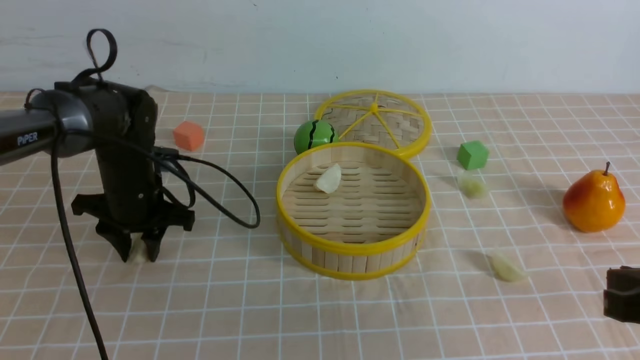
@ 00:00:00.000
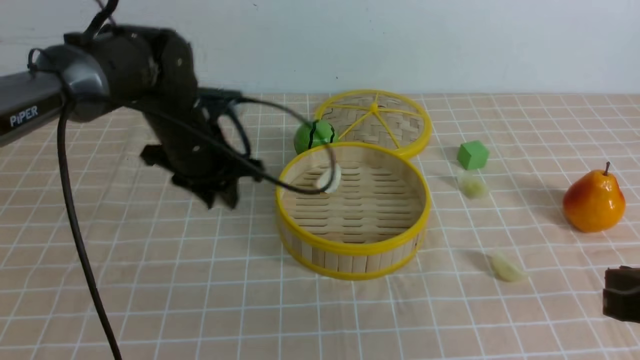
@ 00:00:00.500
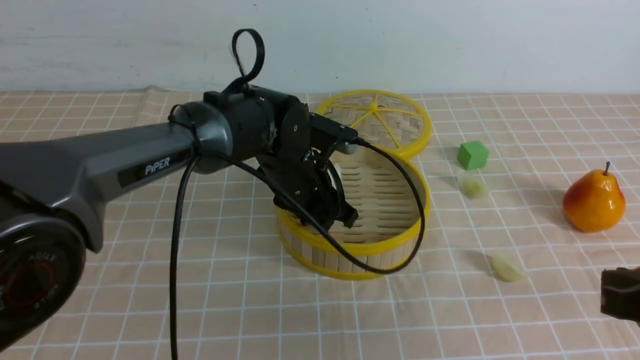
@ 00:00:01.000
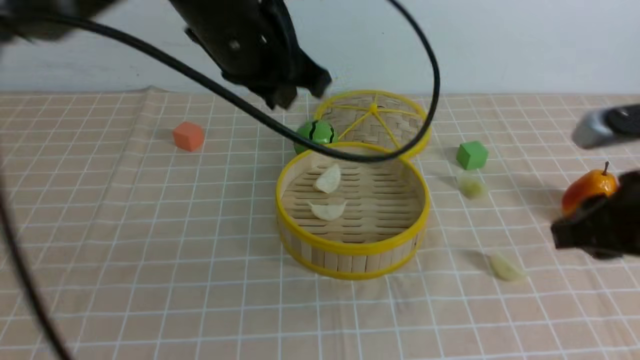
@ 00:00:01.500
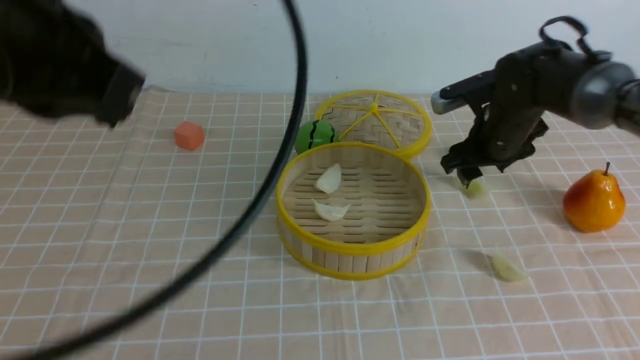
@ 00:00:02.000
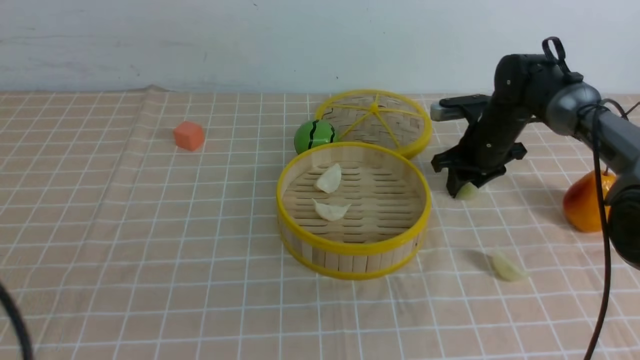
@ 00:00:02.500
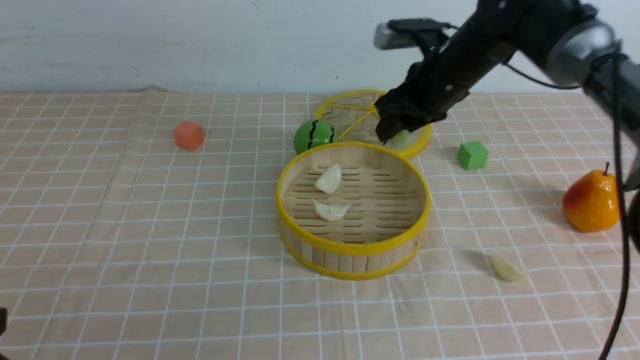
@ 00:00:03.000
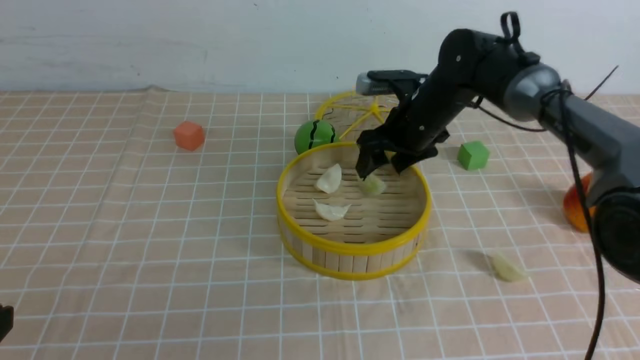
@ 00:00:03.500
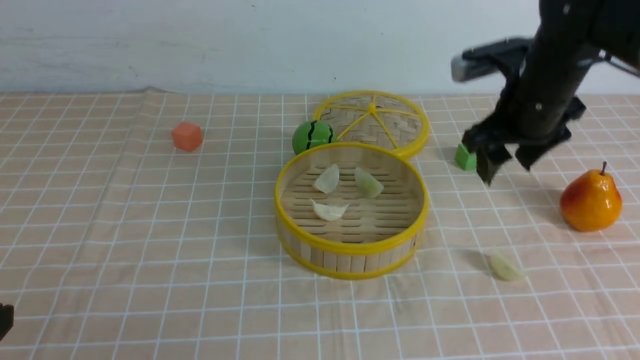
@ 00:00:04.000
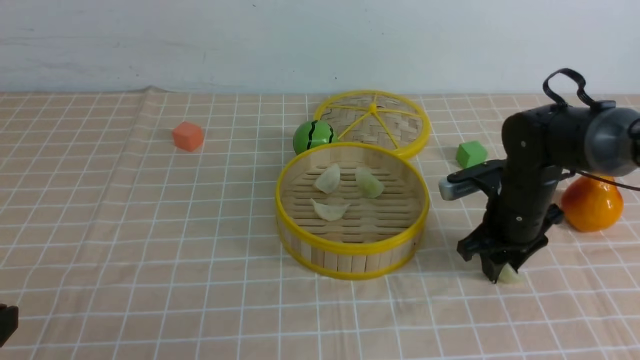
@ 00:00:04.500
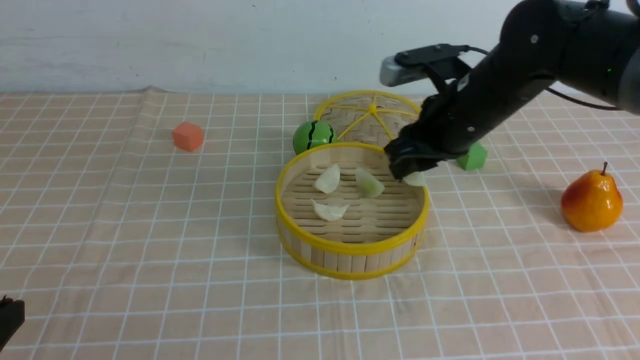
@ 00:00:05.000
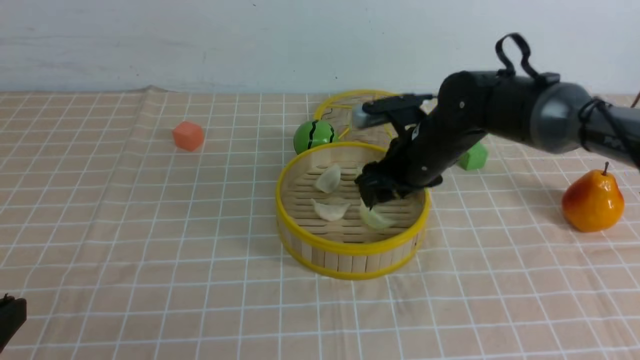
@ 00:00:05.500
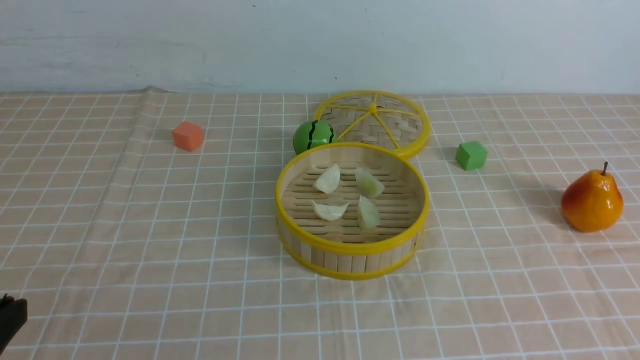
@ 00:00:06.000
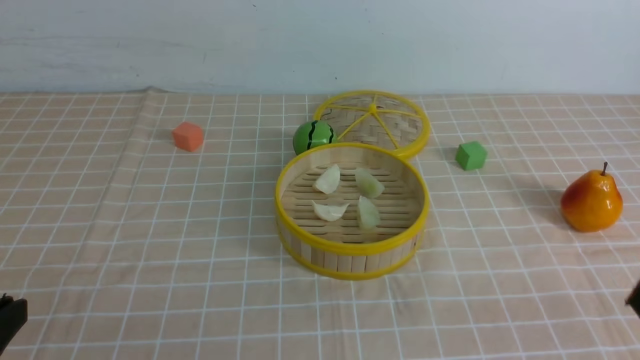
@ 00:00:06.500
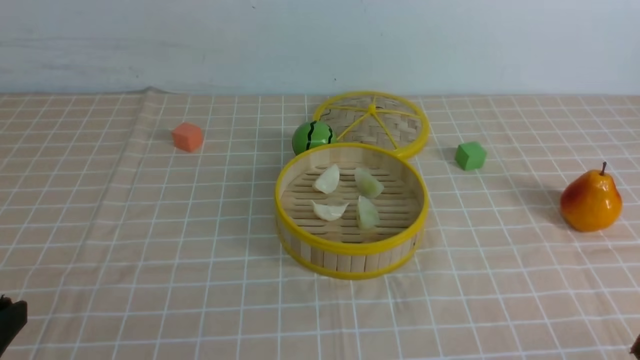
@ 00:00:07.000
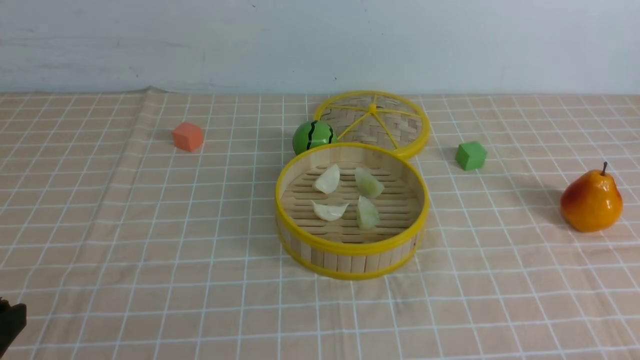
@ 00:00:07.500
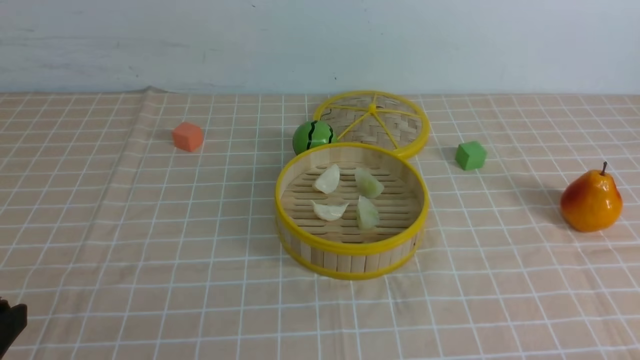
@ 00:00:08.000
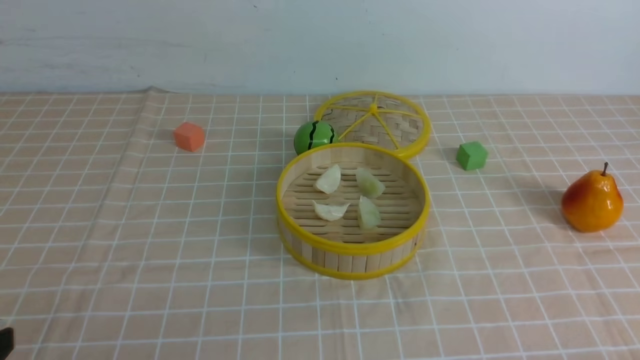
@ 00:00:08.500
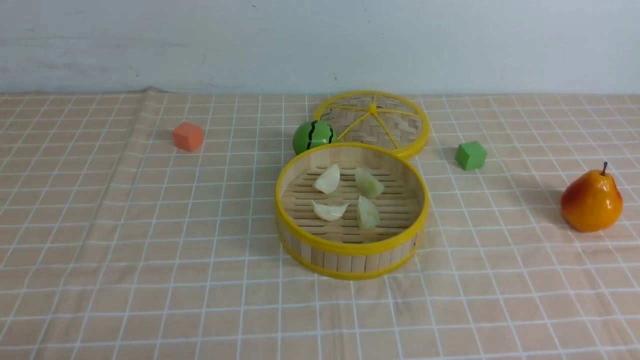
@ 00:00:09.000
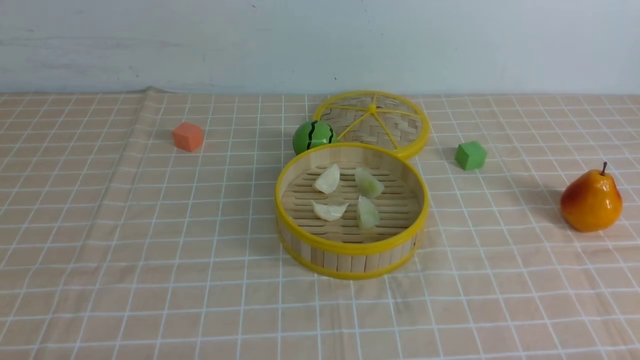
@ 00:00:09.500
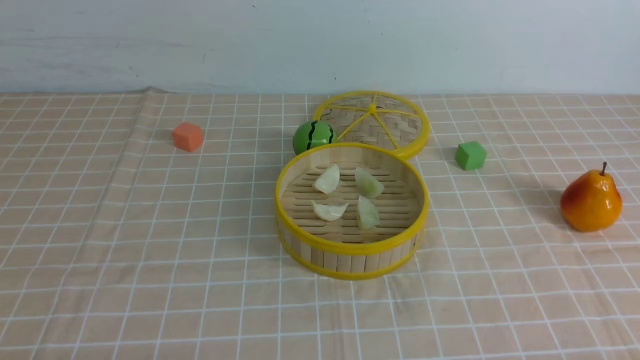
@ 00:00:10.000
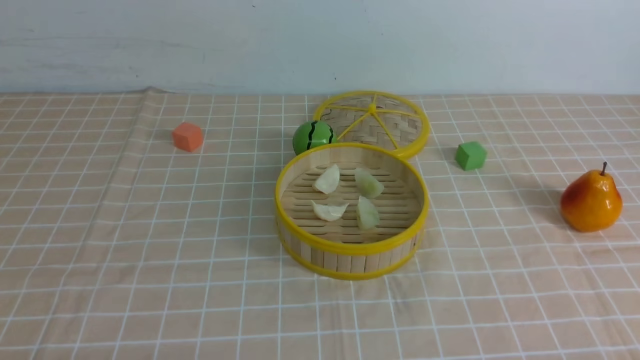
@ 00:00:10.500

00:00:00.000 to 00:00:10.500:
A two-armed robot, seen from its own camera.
Task of the whole recording: put the dumplings into the steamer on the table with the brown tablecloth.
Step, 00:00:00.500 to 00:00:01.000: use the left arm to put the dumpling into the steamer.
Step, 00:00:01.500 to 00:00:02.000: use the right arm to grab a dumpling.
Step, 00:00:03.000 to 00:00:03.500: use the right arm to put the dumpling into the steamer.
Step, 00:00:04.000 to 00:00:04.500: use the right arm to grab a dumpling.
Step, 00:00:05.000 to 00:00:05.500: use the right arm to put the dumpling into the steamer.
00:00:00.000 to 00:00:02.000: The right gripper is displaced forward by approximately 30 cm, and opens up, while the left gripper heads upward and backward, covering approximately 35 cm, and closes.
00:00:02.000 to 00:00:04.000: The right gripper goes approximately 10 cm backward and upward, and closes, then opens again; the left gripper shifts roughly 25 cm downward, backward and to the left.
00:00:04.000 to 00:00:06.500: The right gripper shifts about 35 cm backward, and closes.
